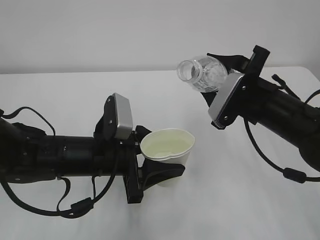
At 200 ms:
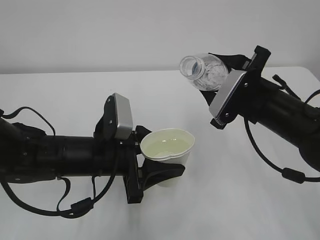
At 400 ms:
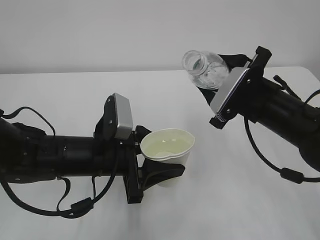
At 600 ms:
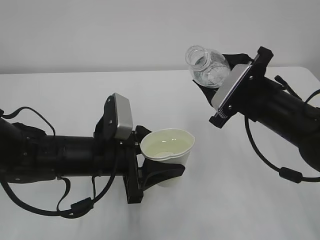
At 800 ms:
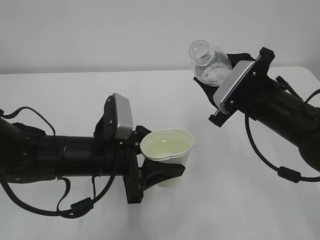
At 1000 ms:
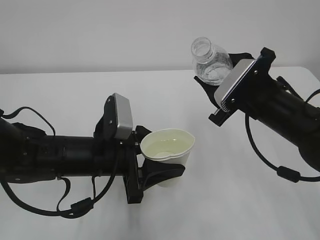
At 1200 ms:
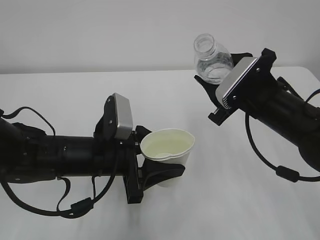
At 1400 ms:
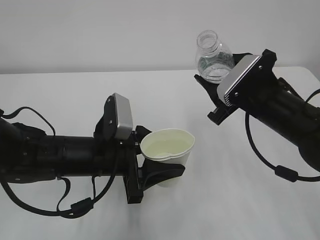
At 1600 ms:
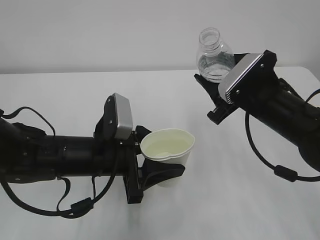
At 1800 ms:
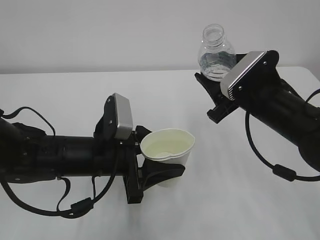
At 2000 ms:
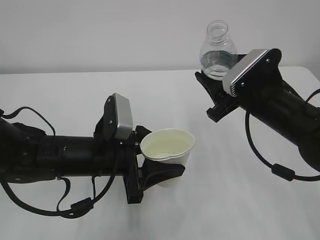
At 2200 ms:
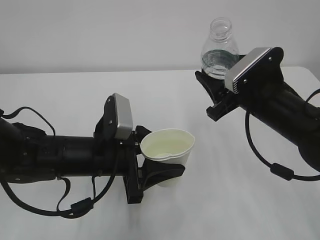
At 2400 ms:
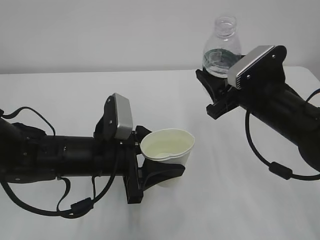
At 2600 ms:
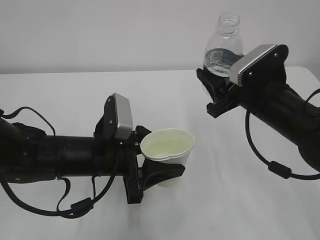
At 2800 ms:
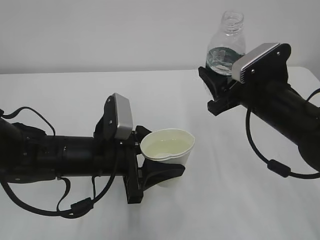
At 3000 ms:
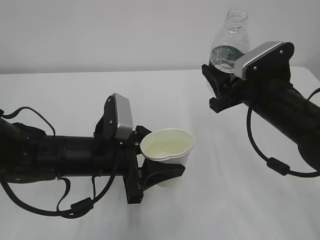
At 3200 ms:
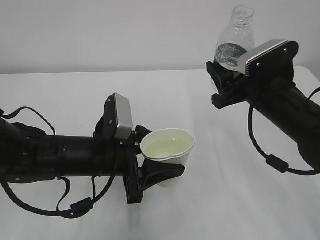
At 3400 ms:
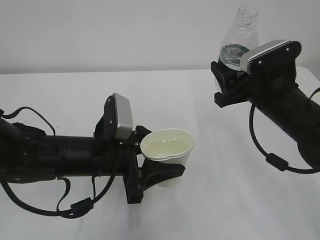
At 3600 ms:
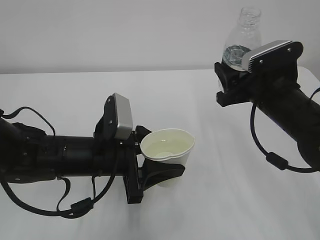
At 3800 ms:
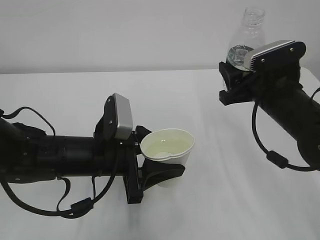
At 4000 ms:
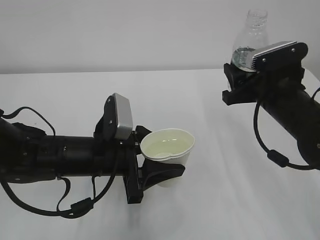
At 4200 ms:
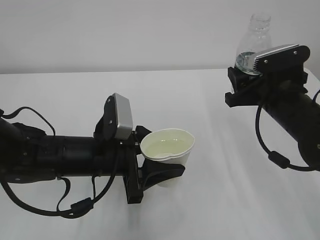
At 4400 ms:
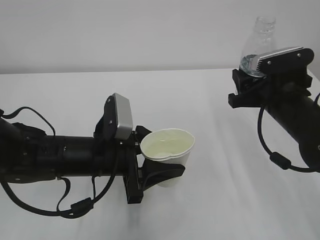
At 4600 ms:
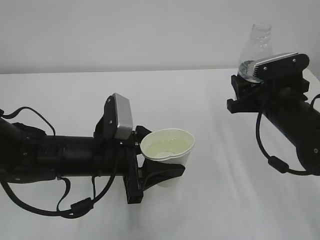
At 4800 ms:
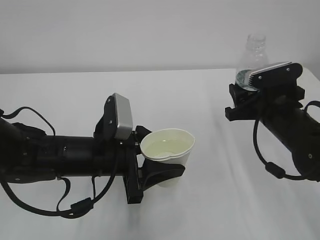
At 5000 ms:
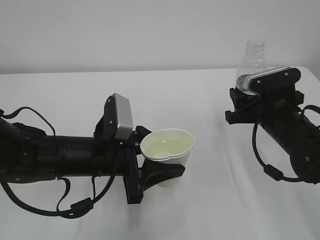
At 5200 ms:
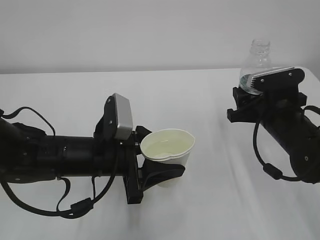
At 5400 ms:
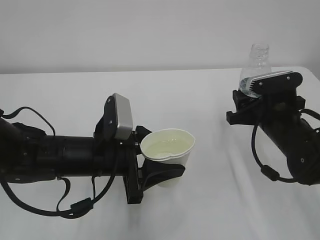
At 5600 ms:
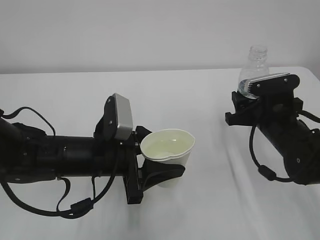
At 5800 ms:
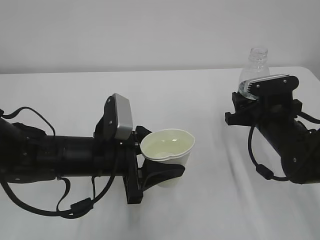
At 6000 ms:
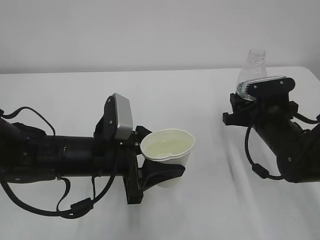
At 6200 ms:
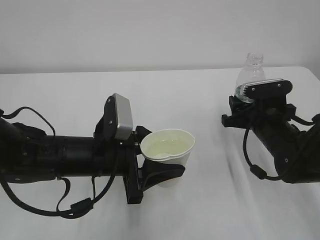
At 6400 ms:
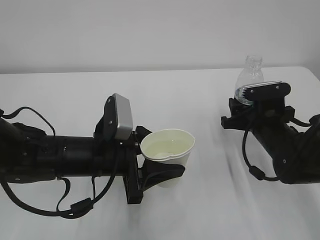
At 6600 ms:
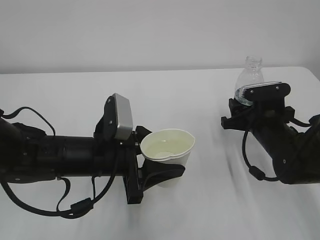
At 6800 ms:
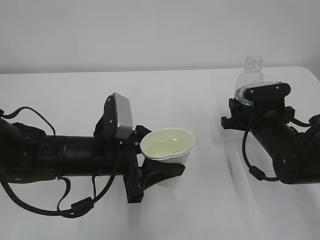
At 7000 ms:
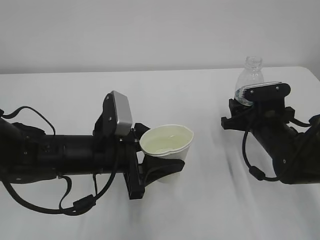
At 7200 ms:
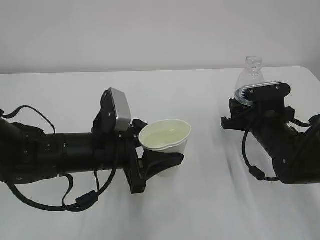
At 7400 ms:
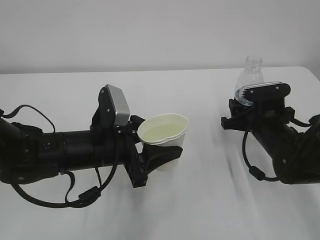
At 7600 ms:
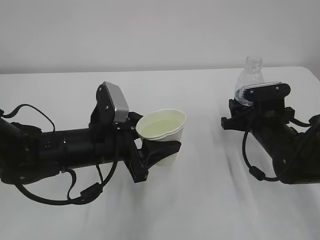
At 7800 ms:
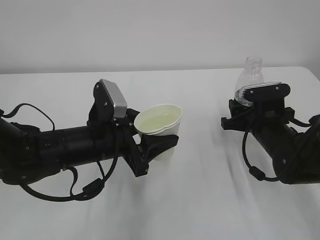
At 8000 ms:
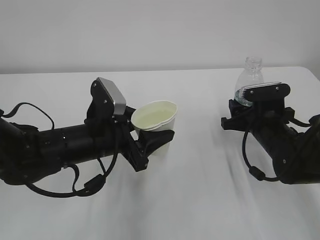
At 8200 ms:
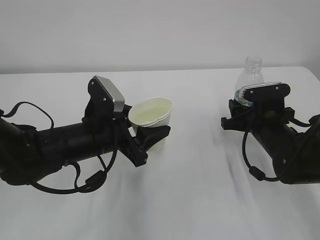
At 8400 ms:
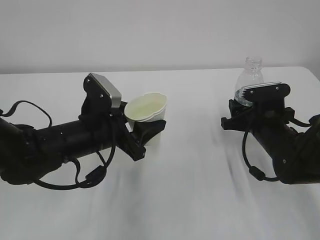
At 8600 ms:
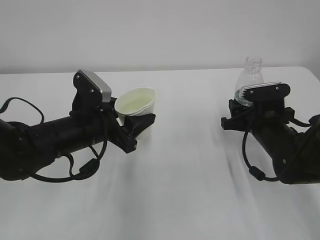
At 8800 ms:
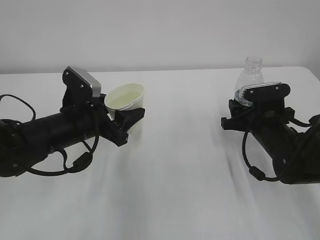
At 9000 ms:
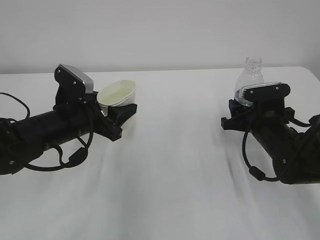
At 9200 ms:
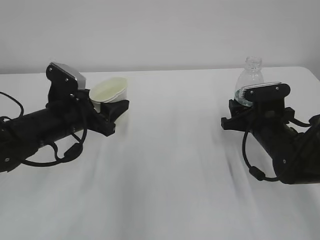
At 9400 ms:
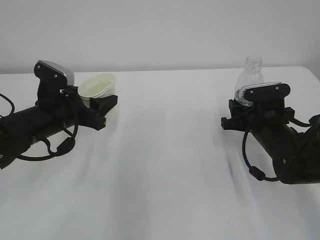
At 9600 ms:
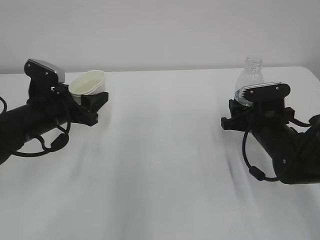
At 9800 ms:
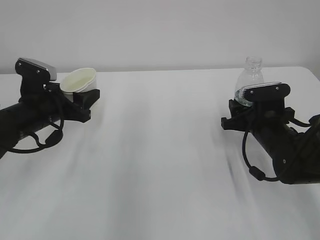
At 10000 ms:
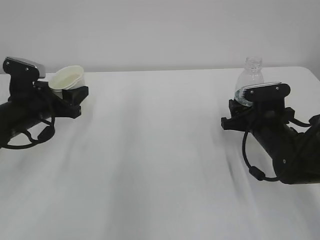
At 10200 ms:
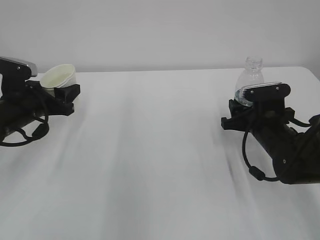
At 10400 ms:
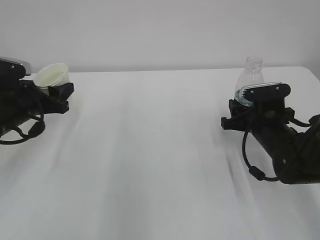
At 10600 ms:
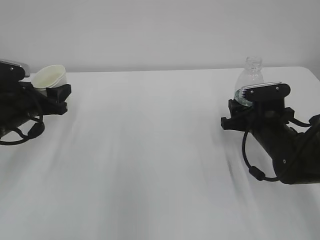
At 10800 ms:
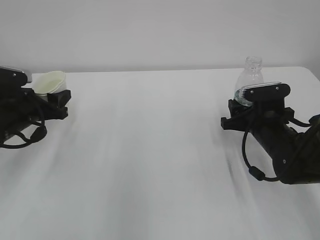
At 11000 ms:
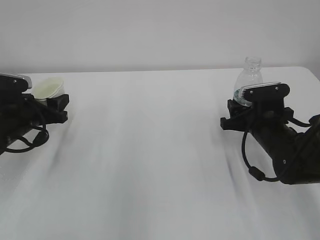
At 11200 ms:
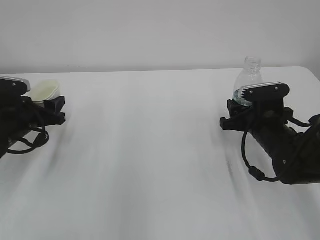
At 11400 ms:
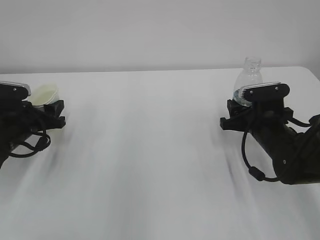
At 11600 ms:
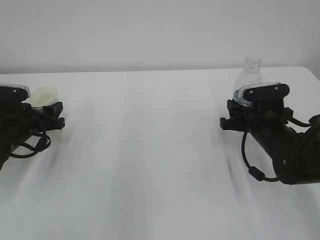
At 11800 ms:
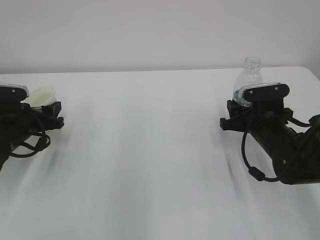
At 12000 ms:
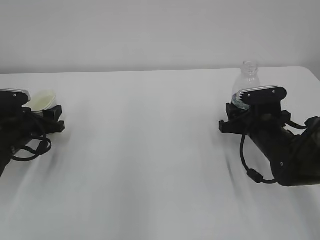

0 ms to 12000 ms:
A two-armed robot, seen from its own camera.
1600 ms to 3000 ms: The grippers move only a little.
4400 ms to 6000 ms: The right gripper is displaced downward by about 5 cm.
6000 ms to 7600 ms: The grippers stay close to where they were, moving slightly.
7600 ms to 9000 ms: The left gripper travels to the left by about 5 cm.
9000 ms to 10400 ms: The left gripper heads to the left, covering approximately 10 cm.
10400 ms to 12000 ms: The left gripper is displaced downward by some 5 cm.

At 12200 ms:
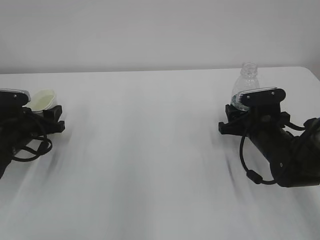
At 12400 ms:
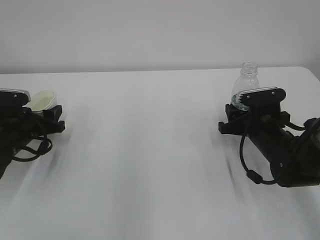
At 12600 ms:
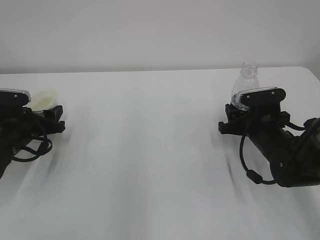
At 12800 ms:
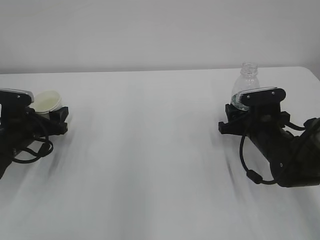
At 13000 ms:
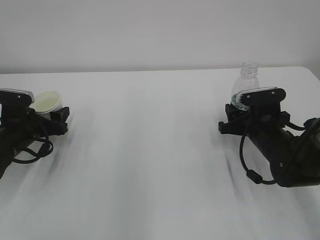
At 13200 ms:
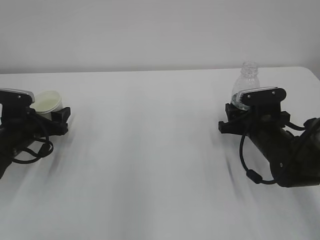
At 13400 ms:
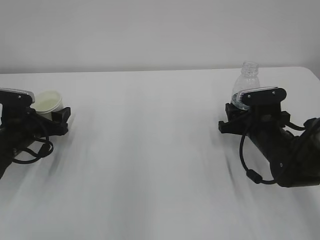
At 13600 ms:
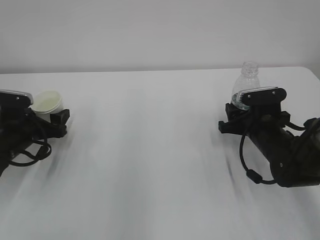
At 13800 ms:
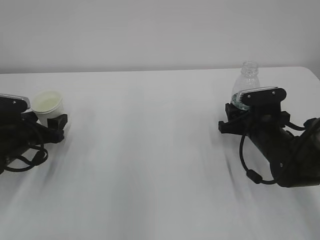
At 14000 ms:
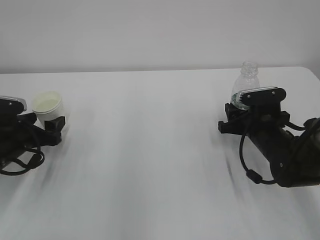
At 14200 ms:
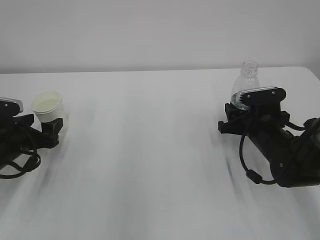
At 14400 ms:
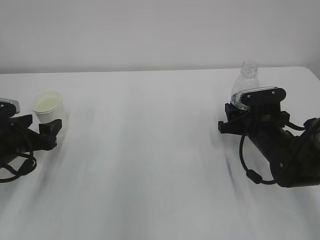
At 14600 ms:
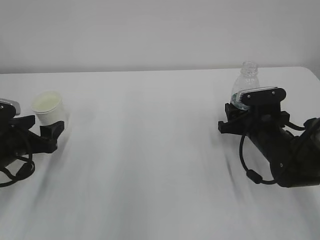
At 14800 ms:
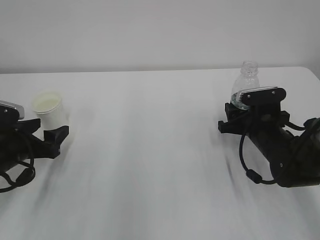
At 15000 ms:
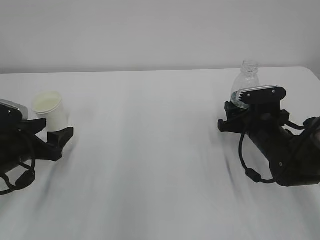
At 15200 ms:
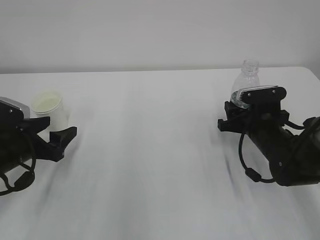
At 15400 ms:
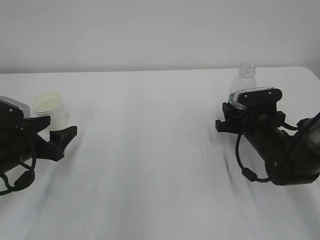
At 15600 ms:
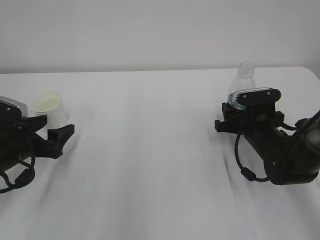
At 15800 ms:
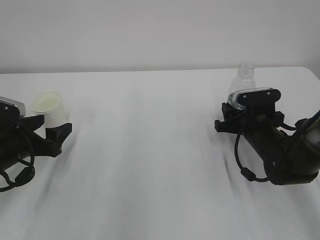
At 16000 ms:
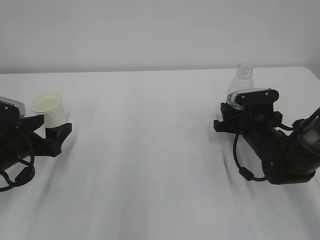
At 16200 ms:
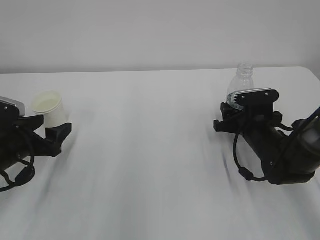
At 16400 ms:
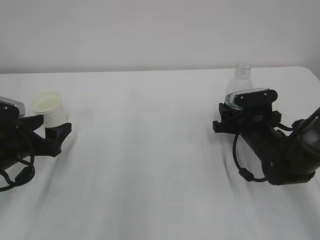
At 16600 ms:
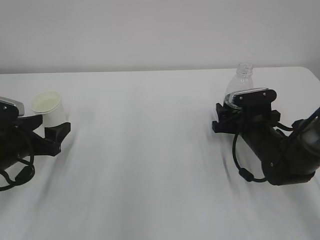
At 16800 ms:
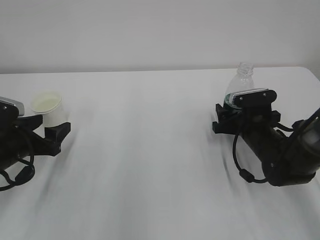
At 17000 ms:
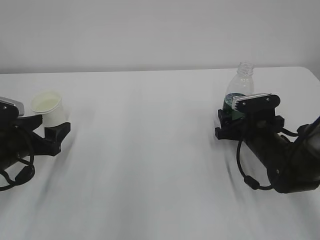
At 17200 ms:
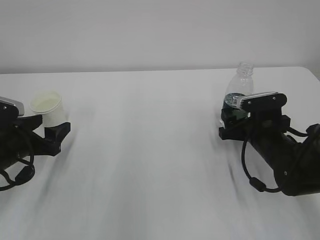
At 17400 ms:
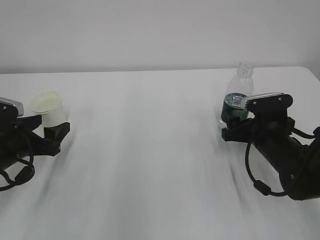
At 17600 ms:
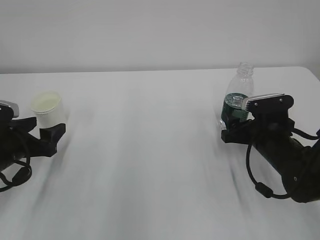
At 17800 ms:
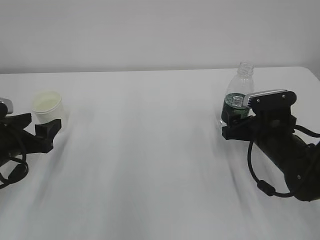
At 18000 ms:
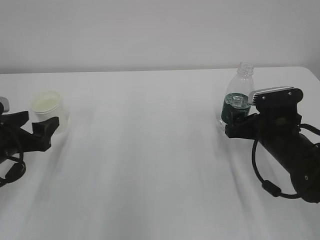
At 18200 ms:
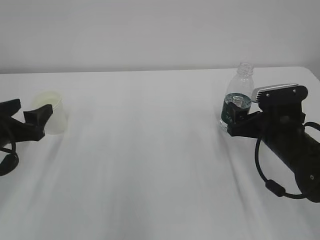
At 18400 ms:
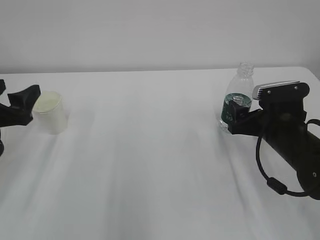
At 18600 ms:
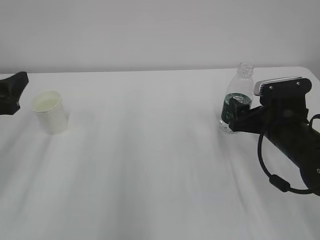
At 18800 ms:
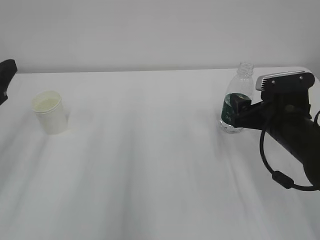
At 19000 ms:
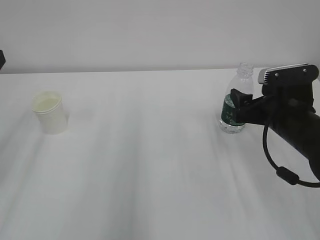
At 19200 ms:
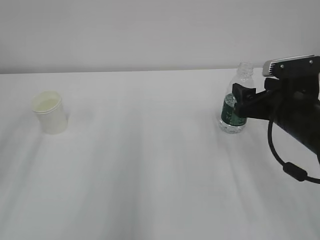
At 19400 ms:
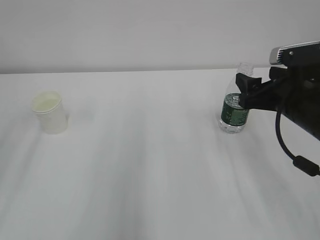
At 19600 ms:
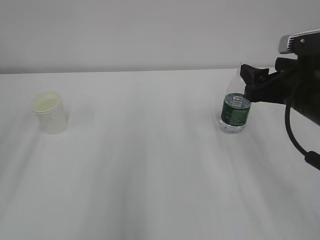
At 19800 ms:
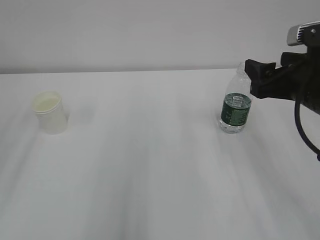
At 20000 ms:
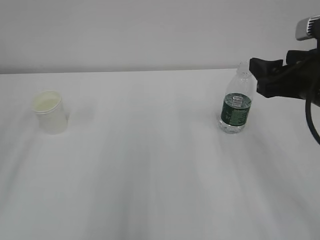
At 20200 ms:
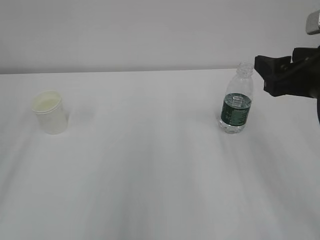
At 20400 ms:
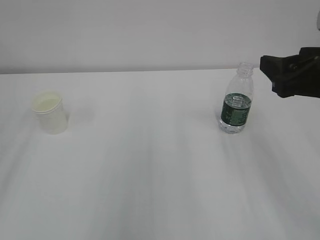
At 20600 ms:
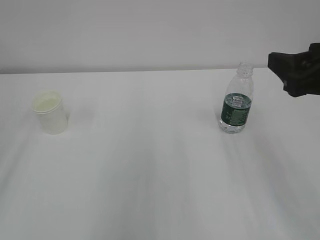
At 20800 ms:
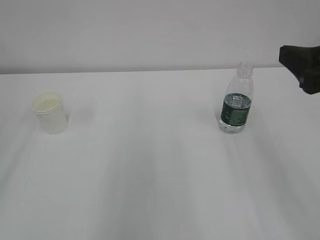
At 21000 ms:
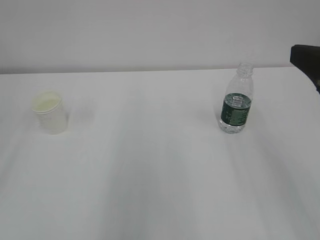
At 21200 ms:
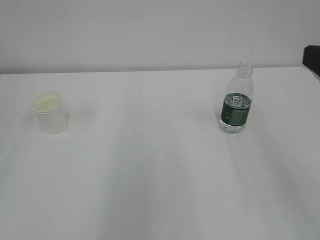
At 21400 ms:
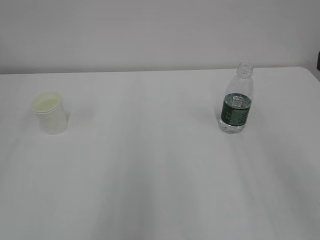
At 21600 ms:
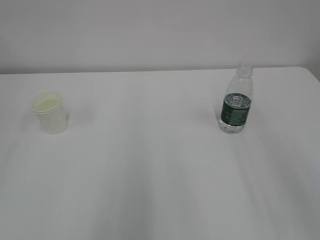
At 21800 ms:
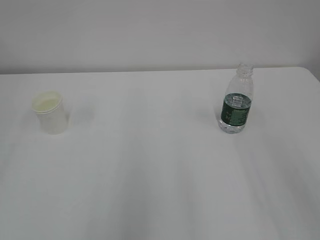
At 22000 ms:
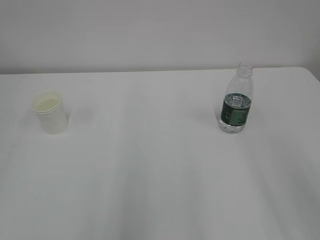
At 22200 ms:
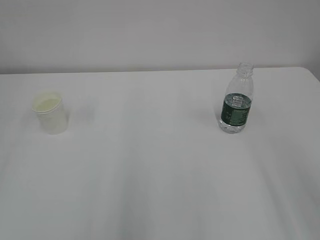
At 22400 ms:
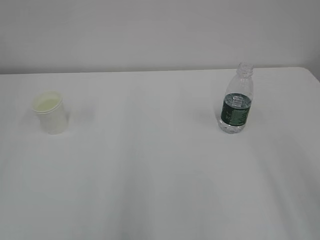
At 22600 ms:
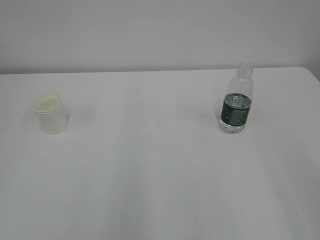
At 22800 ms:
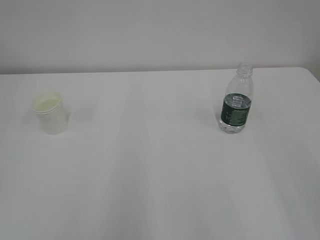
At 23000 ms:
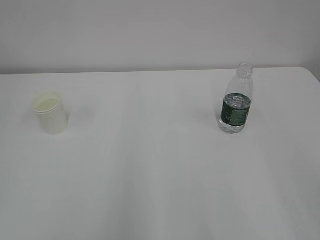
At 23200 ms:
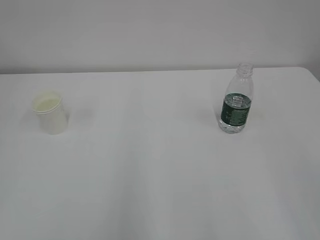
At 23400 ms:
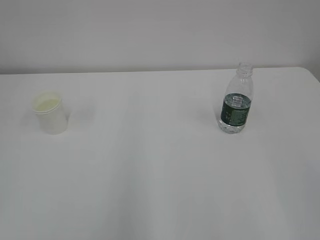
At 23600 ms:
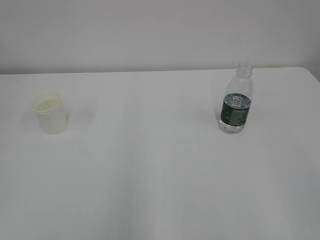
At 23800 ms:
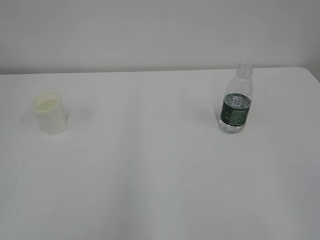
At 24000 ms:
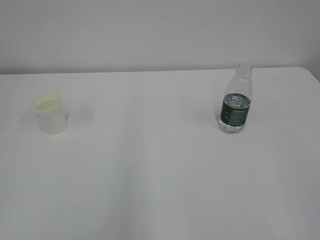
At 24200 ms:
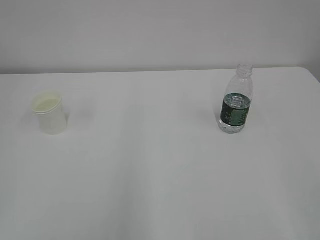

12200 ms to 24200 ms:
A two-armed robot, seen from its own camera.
12200 ms to 13800 ms: The left gripper opens.
13800 ms to 15200 ms: The left gripper moves backward, some 5 cm.
15200 ms to 16600 ms: The right gripper opens its fingers.
16600 ms to 18200 ms: The right gripper goes approximately 5 cm backward.
18200 ms to 19800 ms: The right gripper moves upward, about 10 cm; the left gripper moves upward and backward, about 20 cm.
19800 ms to 21200 ms: The right gripper shifts some 15 cm backward and upward.
